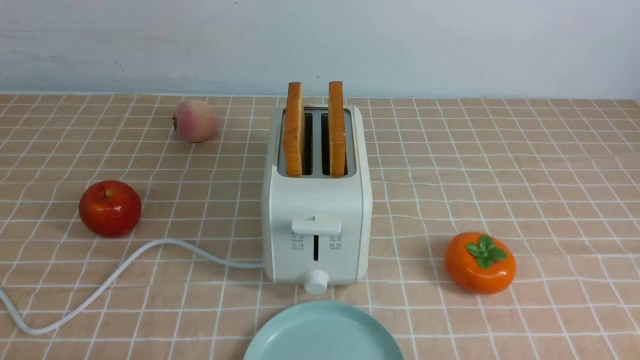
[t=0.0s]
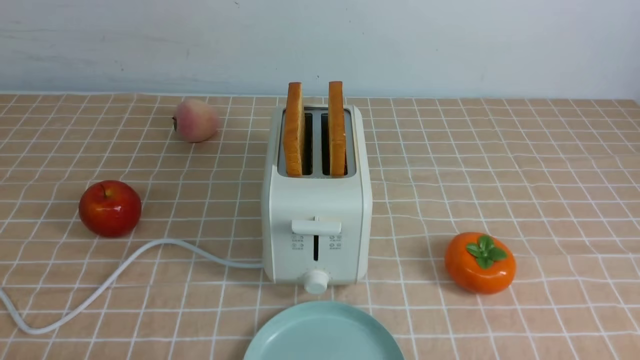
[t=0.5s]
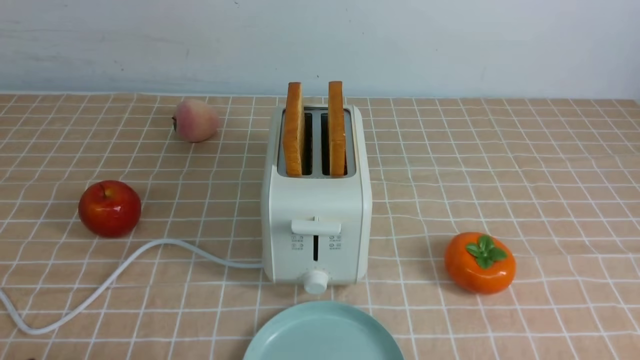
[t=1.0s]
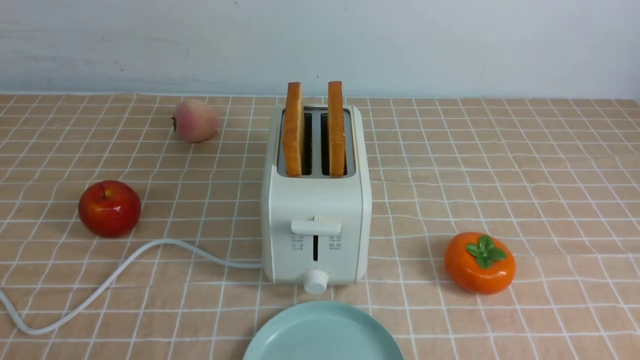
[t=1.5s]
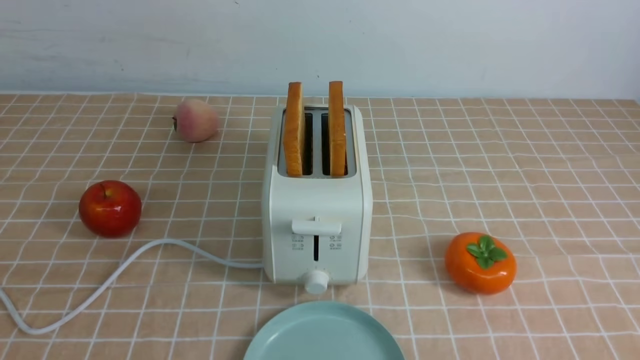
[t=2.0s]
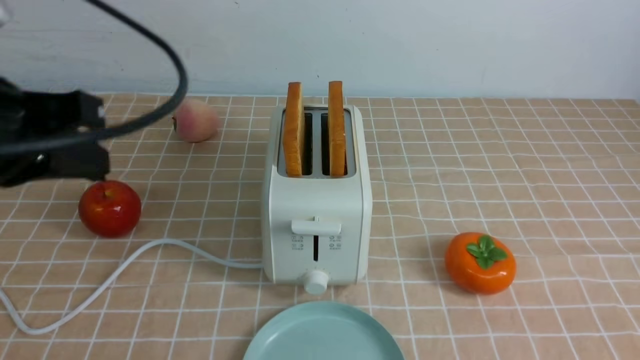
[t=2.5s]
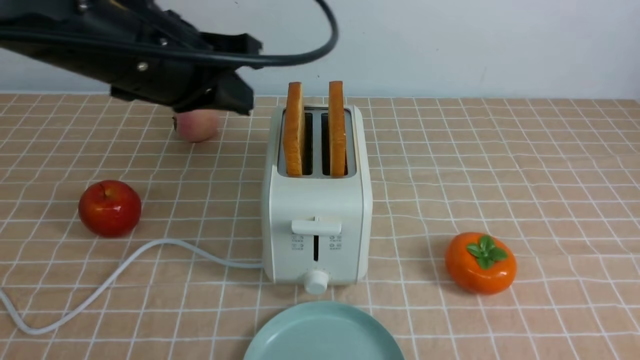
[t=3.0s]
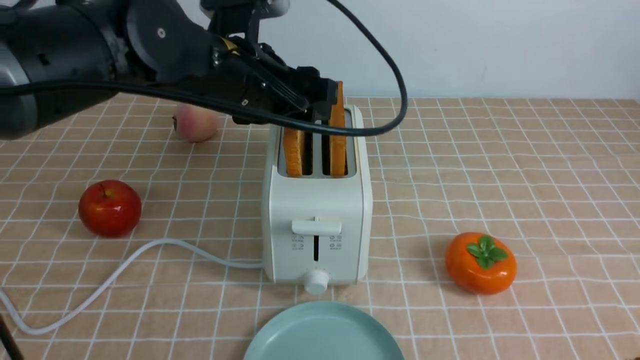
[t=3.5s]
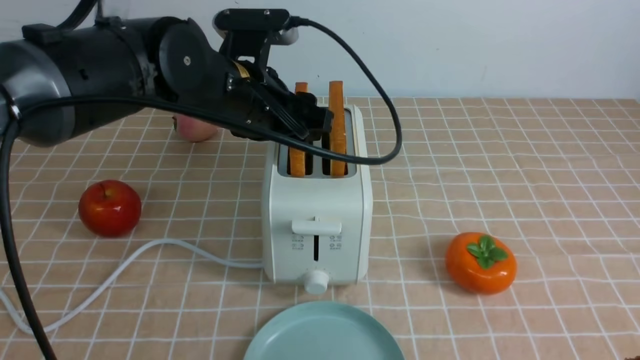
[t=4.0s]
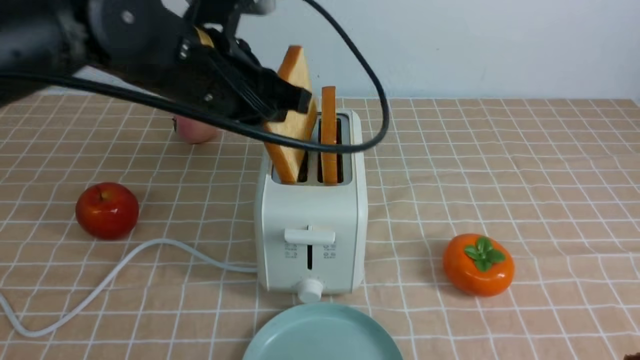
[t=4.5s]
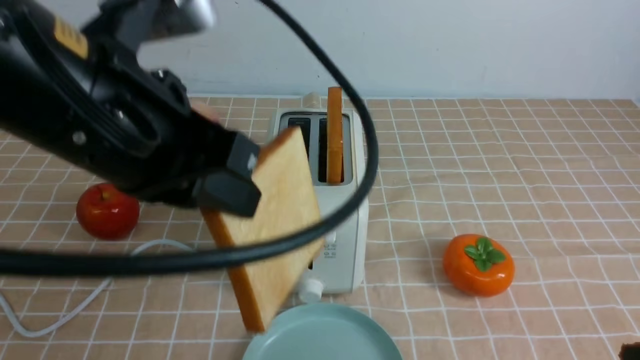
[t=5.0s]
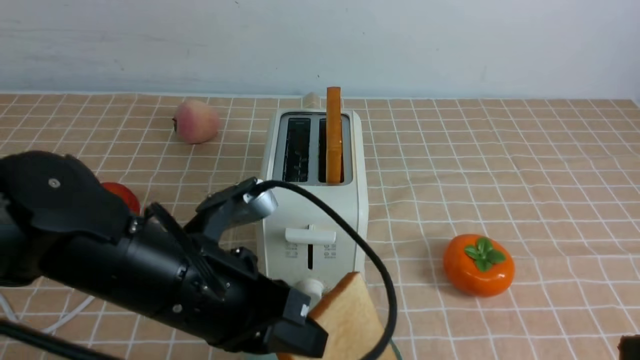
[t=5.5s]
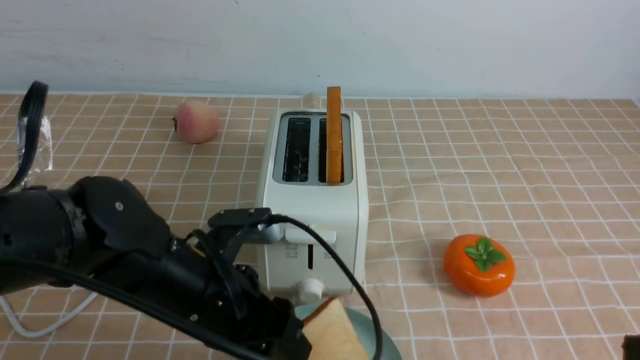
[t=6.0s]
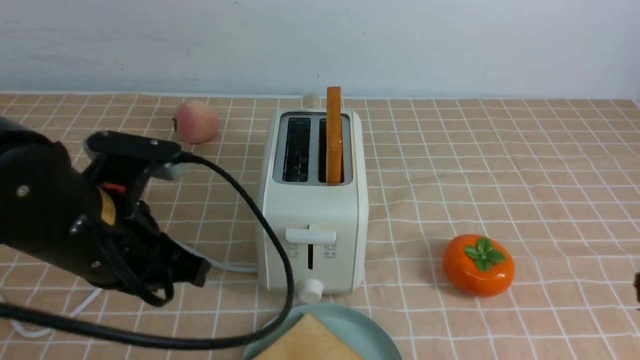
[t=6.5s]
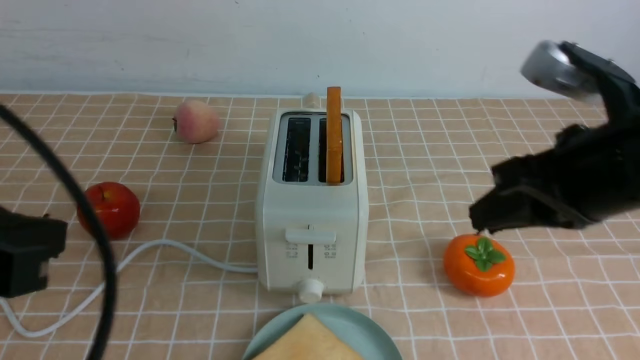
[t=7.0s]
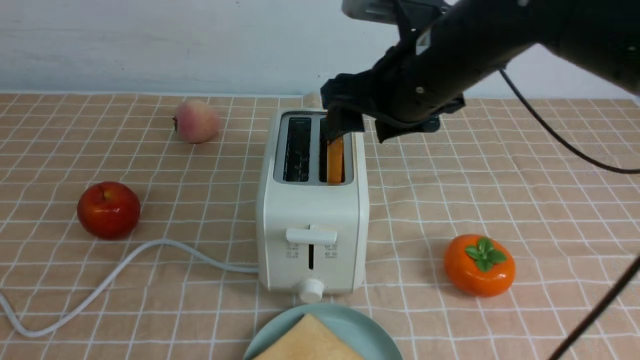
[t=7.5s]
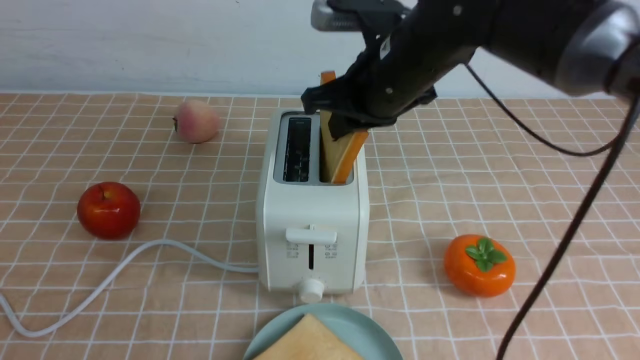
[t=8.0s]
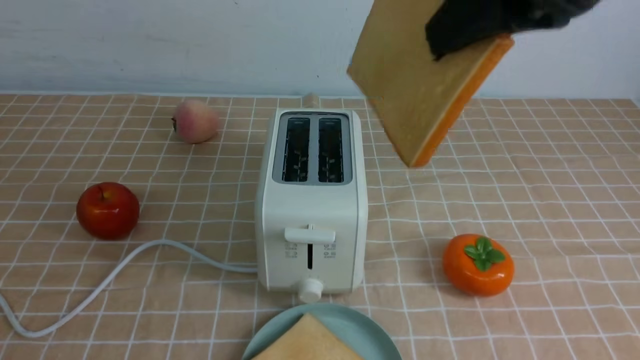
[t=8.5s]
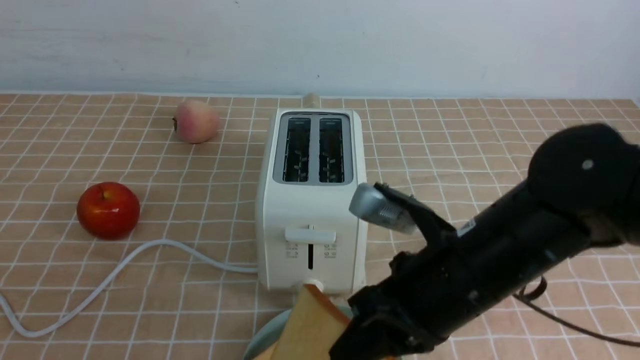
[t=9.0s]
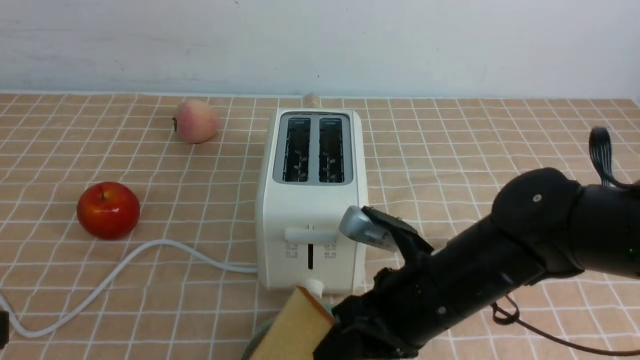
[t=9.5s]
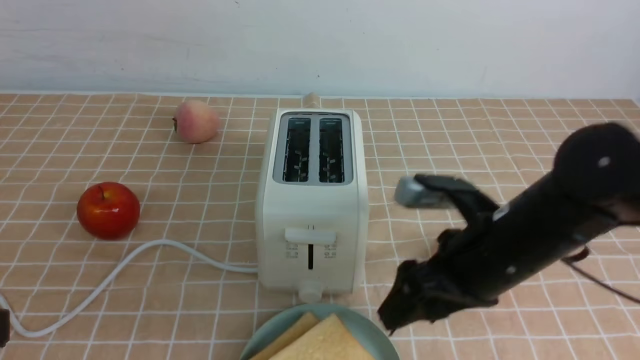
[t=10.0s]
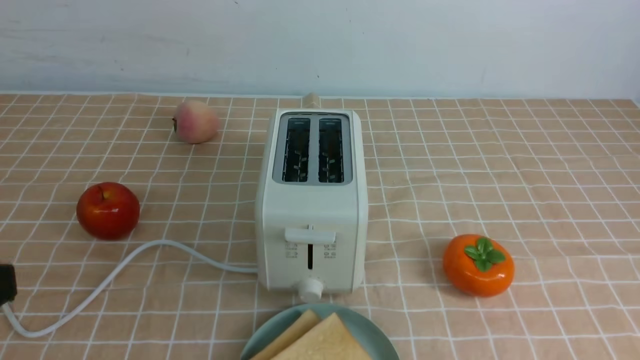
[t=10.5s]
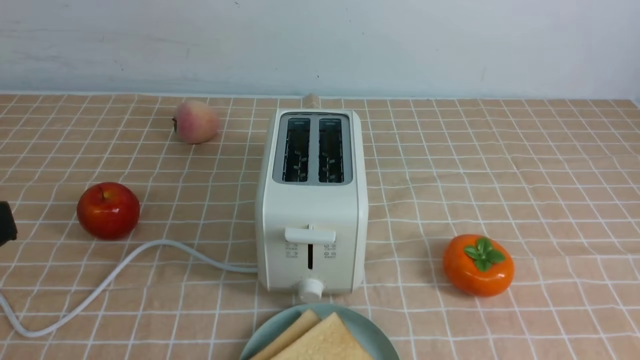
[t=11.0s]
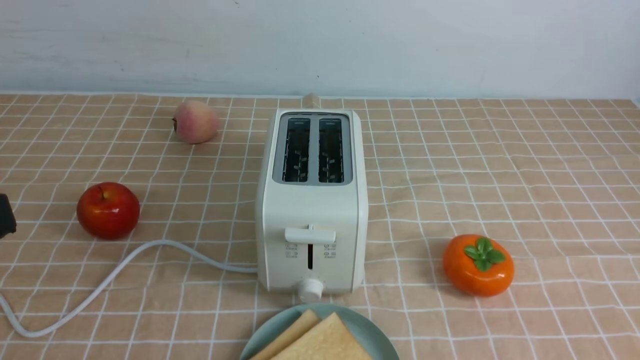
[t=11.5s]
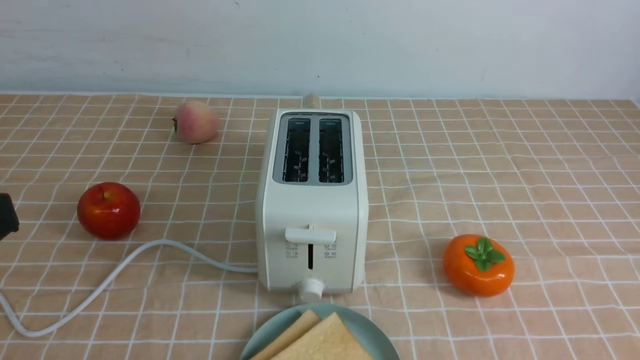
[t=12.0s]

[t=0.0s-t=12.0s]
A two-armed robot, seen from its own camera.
Task of the whole recording: take toasted bread from bread machine on light coffee tablecloth place on plate.
Step, t=0.0s to t=4.0s: use the left arm to take out a slice of bread.
Step, t=5.0s to t=6.5s: use the left arm to put a slice of bread into the empty plate.
Step, t=7.0s to t=8.0s: use the right arm to take out a slice of bread.
Step, t=8.5s to t=10.0s: use the right arm to put a slice of bread into the plate.
t=2.0s to t=4.0s: The left gripper travels forward and to the right by about 35 cm, and opens its fingers. Meanwhile the right gripper moves upward, about 10 cm.
t=4.0s to t=6.0s: The left gripper moves backward and downward, some 15 cm, and closes, then opens again.
t=6.0s to t=8.0s: The right gripper goes approximately 30 cm forward and to the left, and opens and closes again, while the left gripper shifts about 25 cm backward, upward and to the left, and closes.
t=8.0s to t=10.0s: The right gripper swings up and down, some 25 cm each way, with 2 reversals, and opens its fingers.
t=10.0s to t=12.0s: The right gripper moves backward and to the right, about 25 cm, and closes.

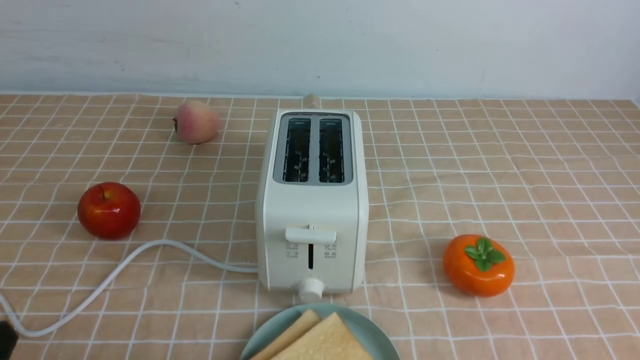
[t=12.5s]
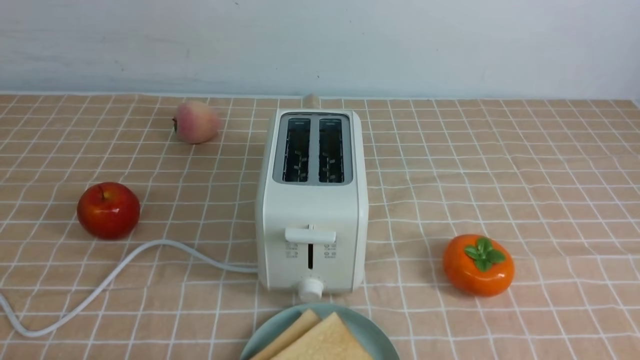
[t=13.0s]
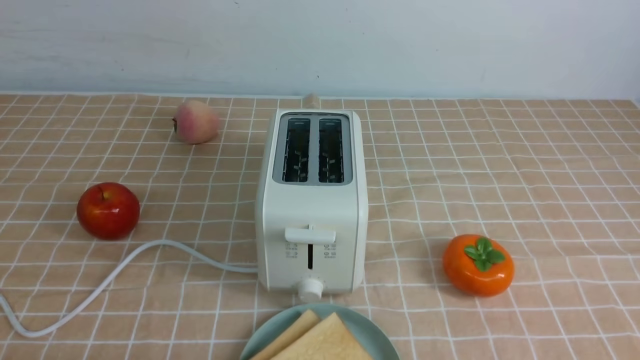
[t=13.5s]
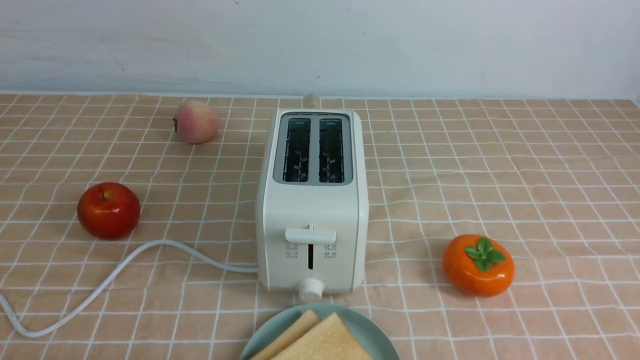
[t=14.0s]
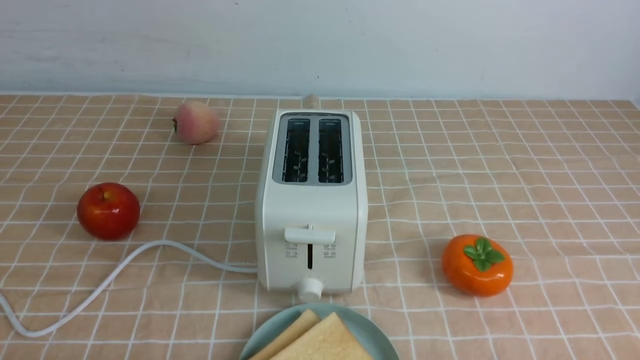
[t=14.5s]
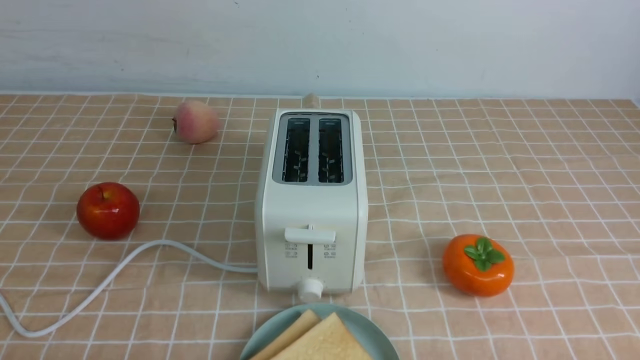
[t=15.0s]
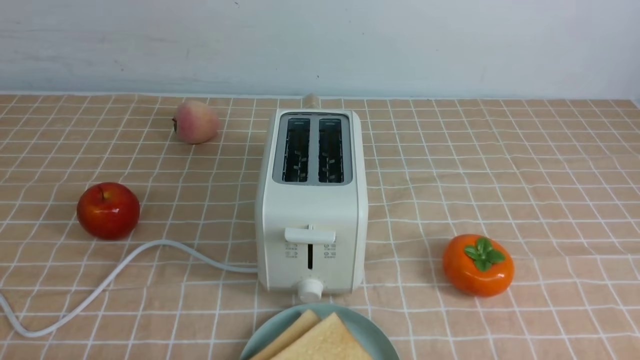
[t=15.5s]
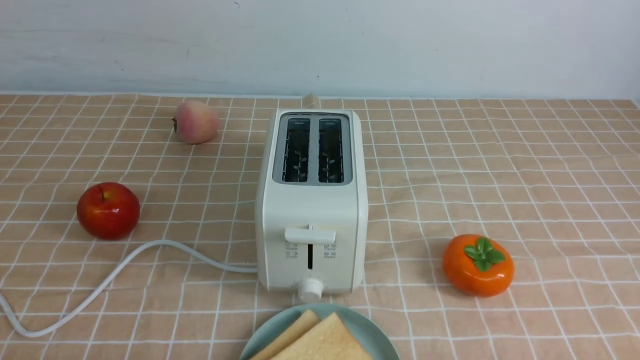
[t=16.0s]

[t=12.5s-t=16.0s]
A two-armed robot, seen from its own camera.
Task of the whole recording: take toasted bread from bread machine on light coffee tablecloth place on plate.
t=14.5s to t=16.0s: Both grippers stay about where they are.

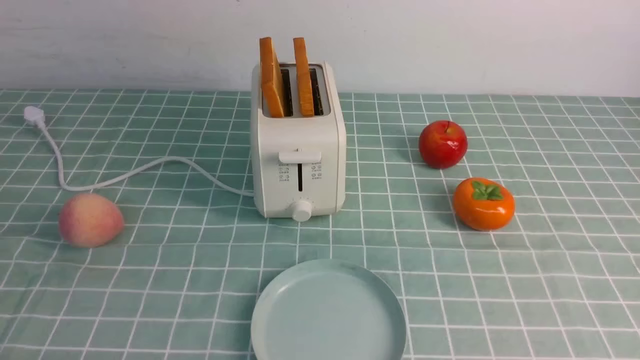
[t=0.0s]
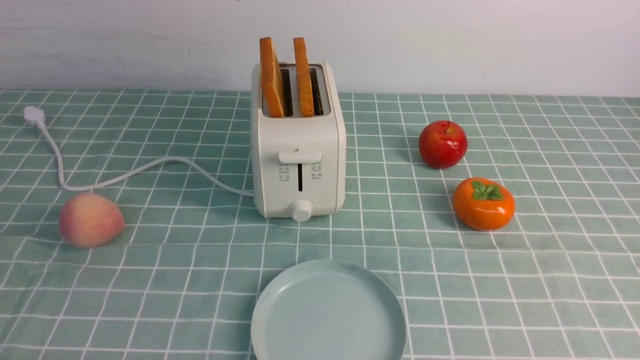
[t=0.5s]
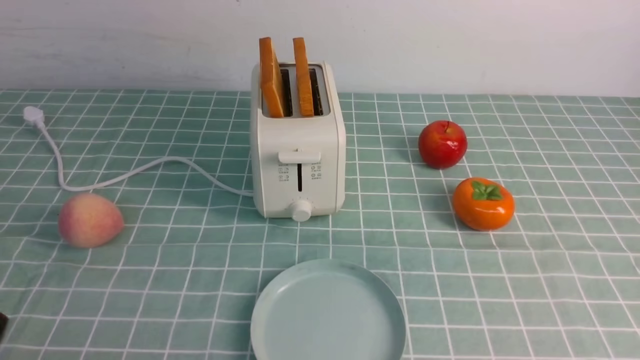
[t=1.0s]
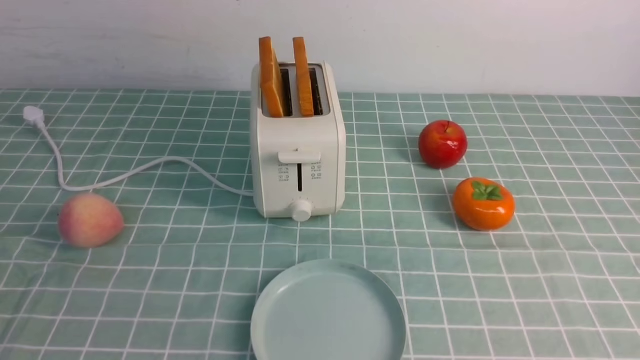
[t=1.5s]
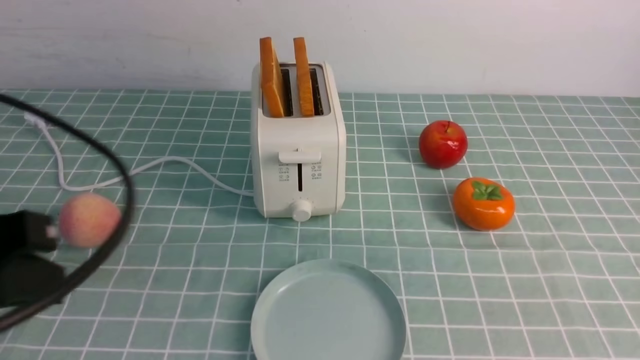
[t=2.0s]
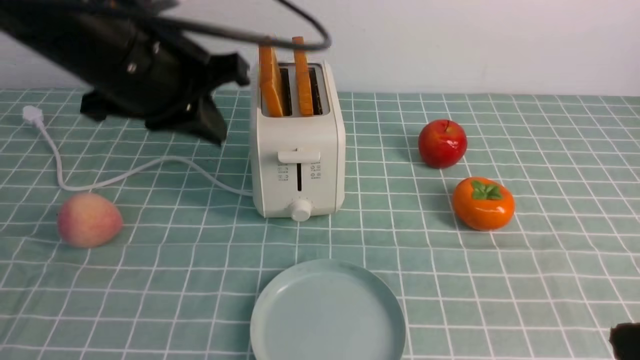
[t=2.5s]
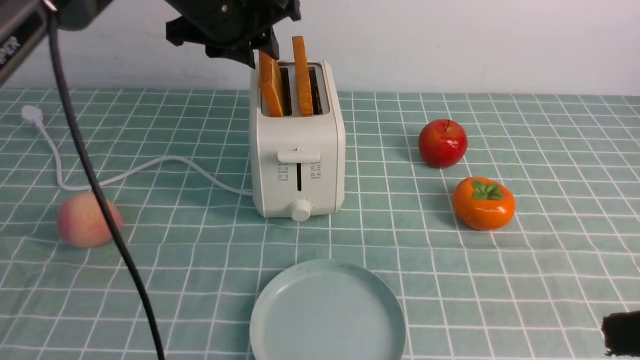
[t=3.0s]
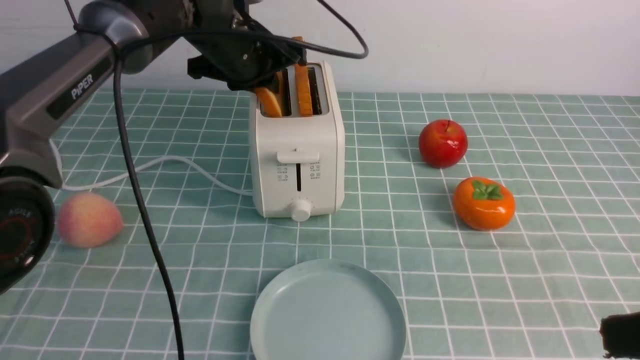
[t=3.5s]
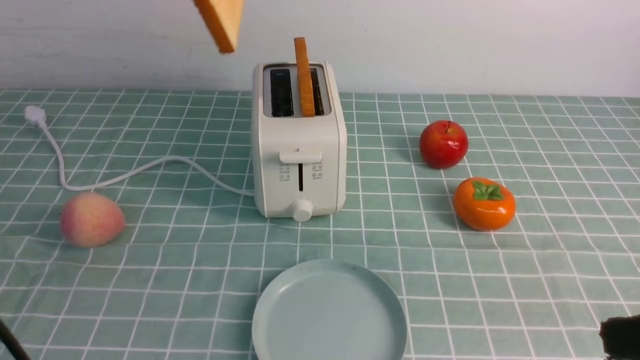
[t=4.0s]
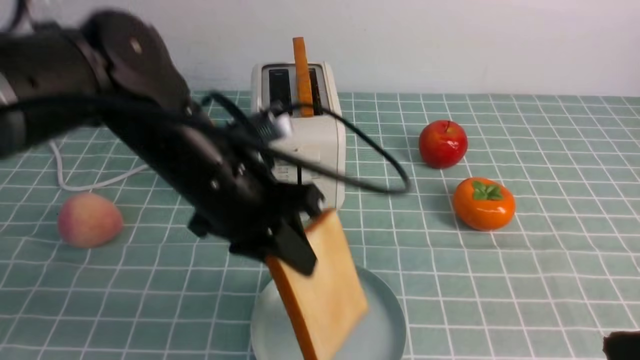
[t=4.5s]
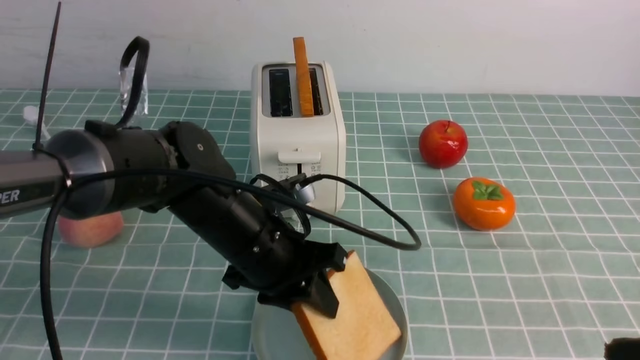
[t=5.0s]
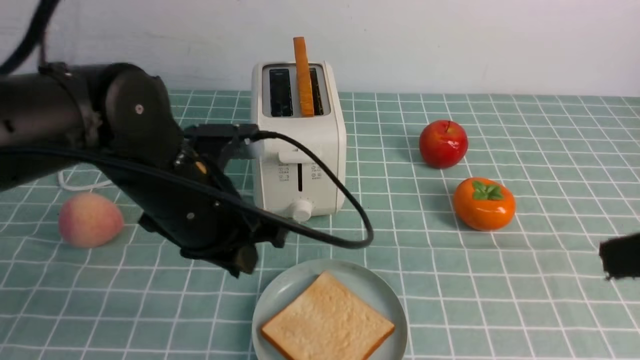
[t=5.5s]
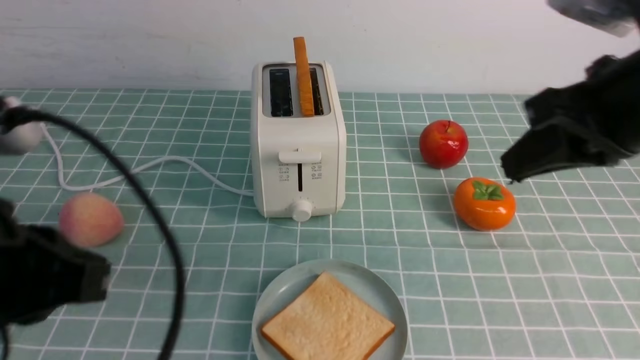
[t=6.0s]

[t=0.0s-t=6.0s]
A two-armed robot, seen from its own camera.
Task of the whole recording: take toasted bread from bread machine on blue coffee table place on plate.
Step, t=0.0s to t=4.0s: use the left arm to take out a slice of bread.
Step, t=4.5s to t=5.0s: use the left arm to put a slice of bread into the empty plate.
t=0.0s to t=2.0s: The left gripper moves upward and forward, some 20 cm, and closes.
t=2.0s to t=4.0s: The right gripper ends up about 5 cm from where it was; the left gripper shifts some 25 cm forward, upward and to the right, and opens its fingers.
t=4.0s to t=6.0s: The left gripper travels backward and downward by roughly 25 cm, and closes up; the right gripper moves forward, upward and to the left, some 15 cm.
